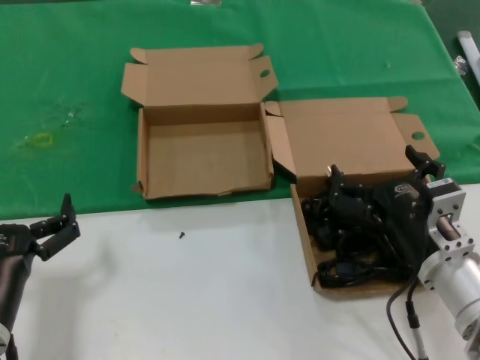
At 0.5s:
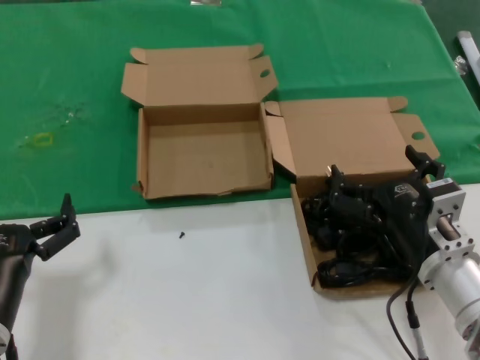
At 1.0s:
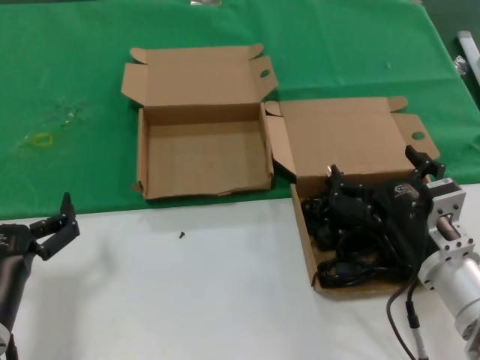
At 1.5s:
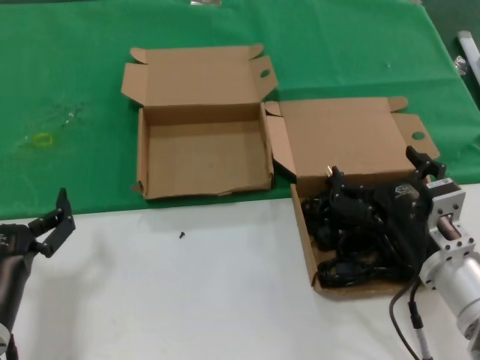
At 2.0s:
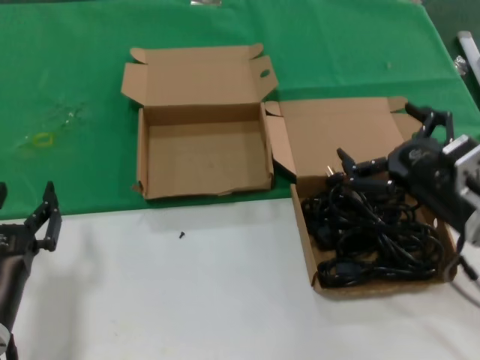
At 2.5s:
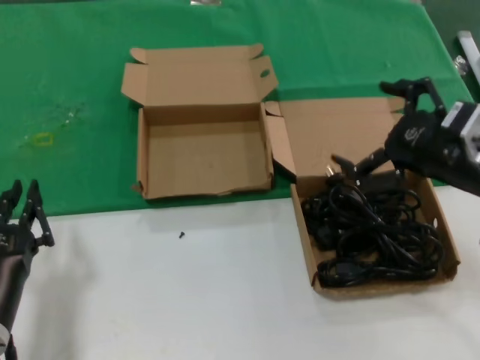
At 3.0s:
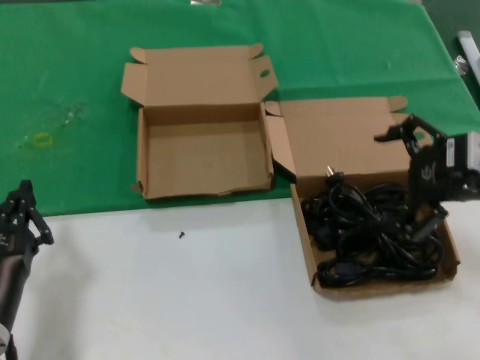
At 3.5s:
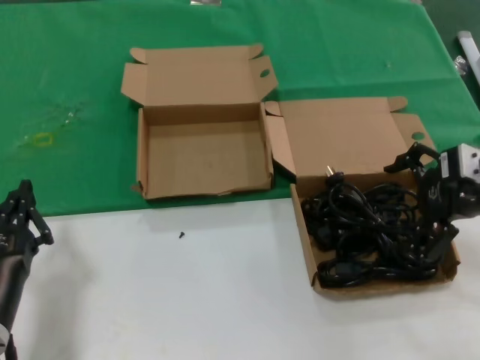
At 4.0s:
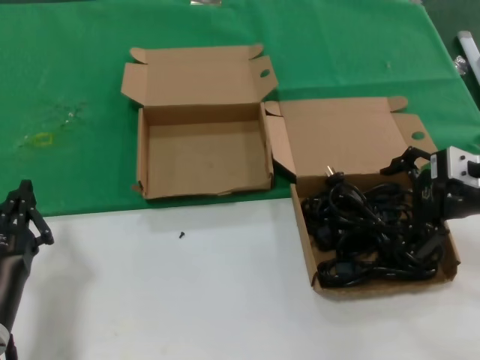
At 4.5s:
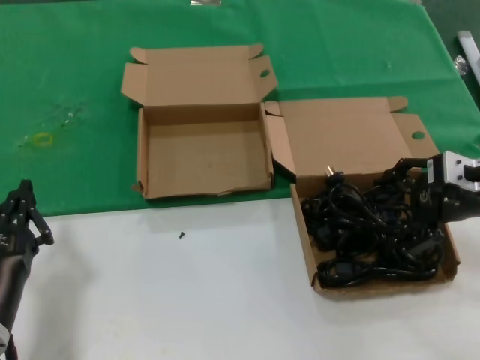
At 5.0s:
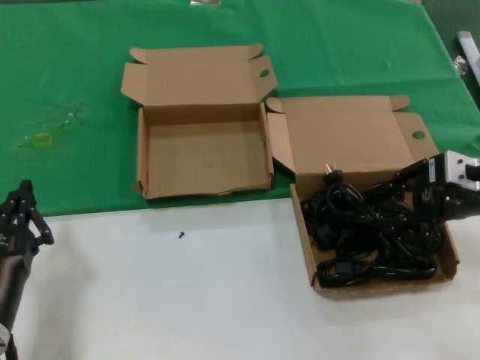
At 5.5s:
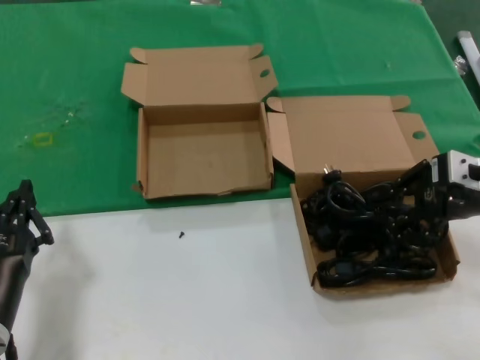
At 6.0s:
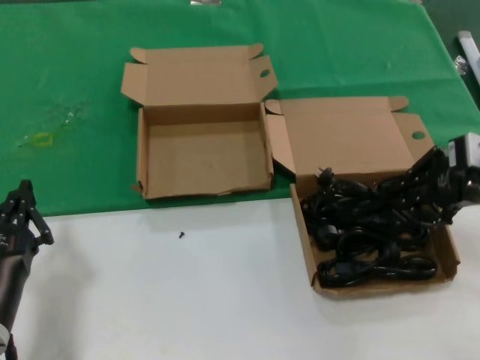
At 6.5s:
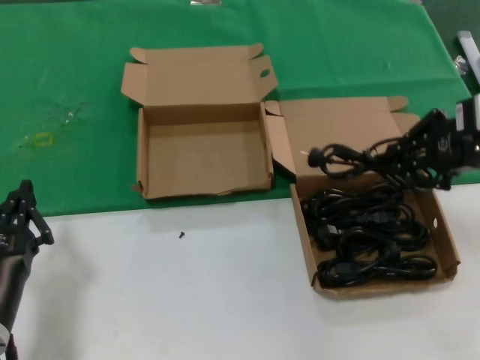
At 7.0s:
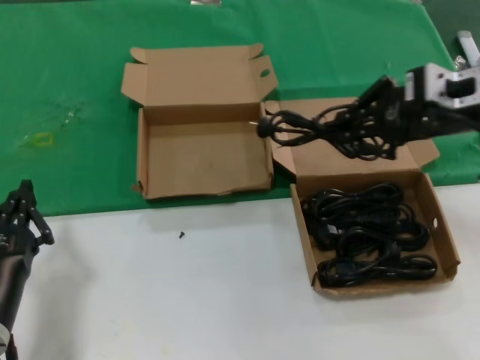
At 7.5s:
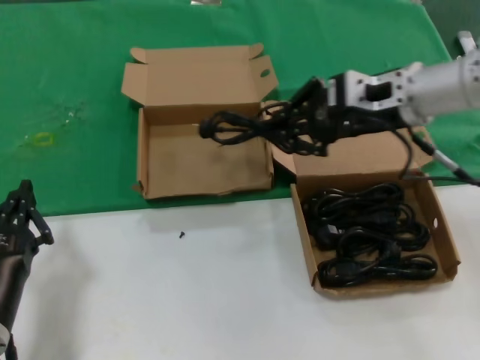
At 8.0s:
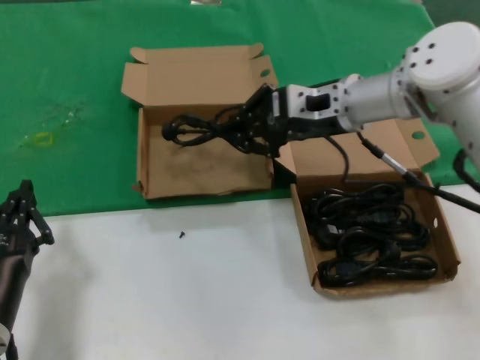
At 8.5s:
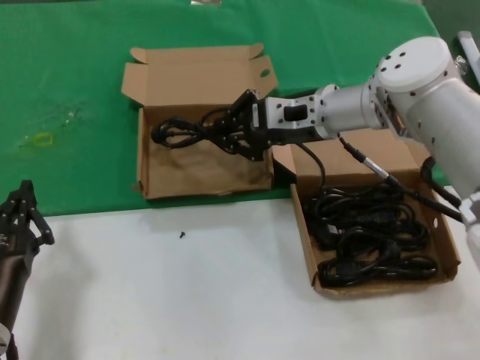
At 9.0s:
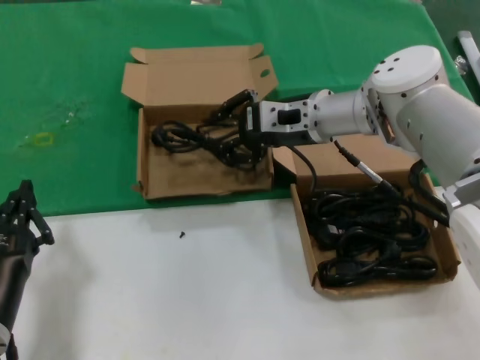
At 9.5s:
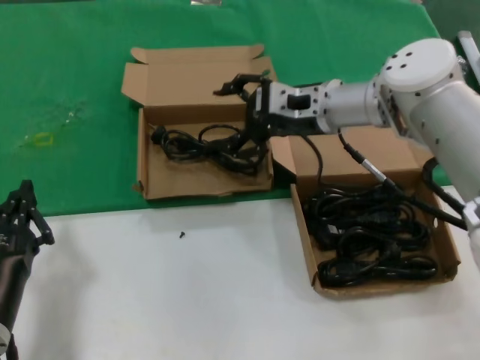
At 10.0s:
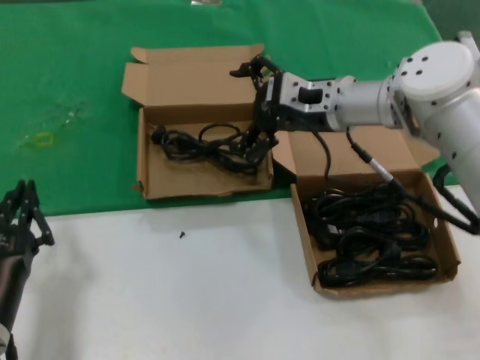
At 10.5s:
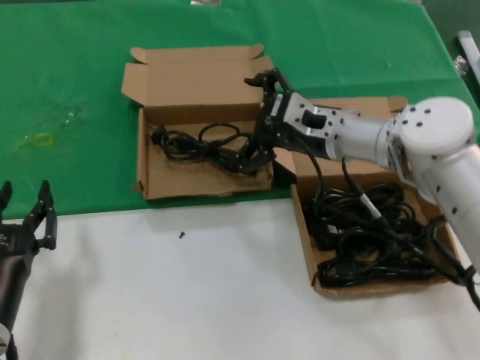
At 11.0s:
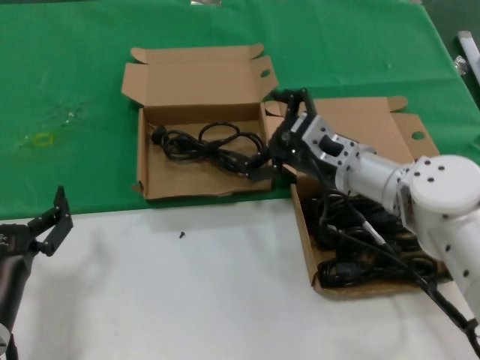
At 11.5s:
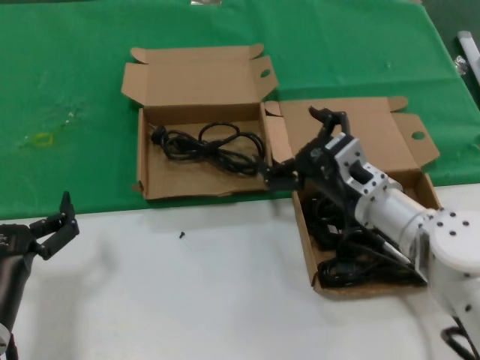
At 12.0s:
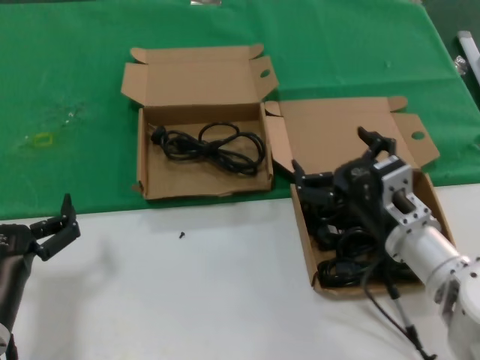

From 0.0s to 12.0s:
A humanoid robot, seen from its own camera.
Task of the whole recording: take the parts from the box containing them and put them into an empty box.
Step, from 0.0s to 5.0s: Grasp the data cable.
Step, from 6.0s to 9.0s: Place the data cable in the another box.
From 0.0s to 2.0s: The right hand is displaced upward and to the right by approximately 10 cm.
From 2.0s to 4.0s: The right hand travels upward, forward and to the right by about 15 cm.
From 4.0s to 6.0s: The hands make only small movements.
From 6.0s to 8.0s: The right hand is displaced to the left and forward by about 20 cm.
From 8.0s to 10.0s: There are only small adjustments of the hands.
From 10.0s to 12.0s: The right hand goes about 20 cm backward and downward.

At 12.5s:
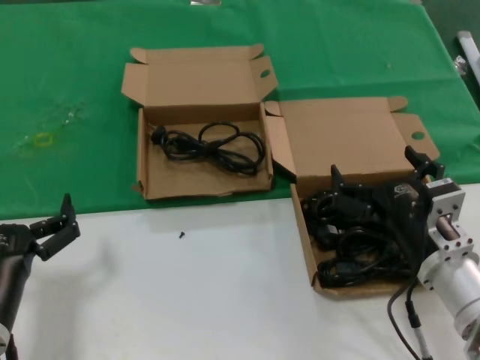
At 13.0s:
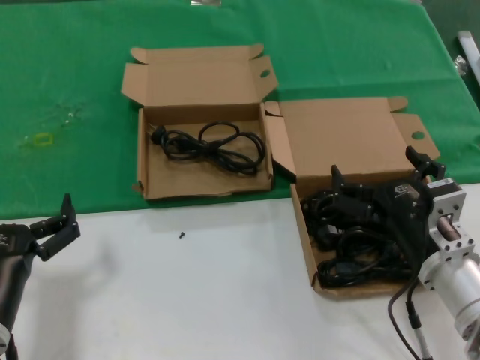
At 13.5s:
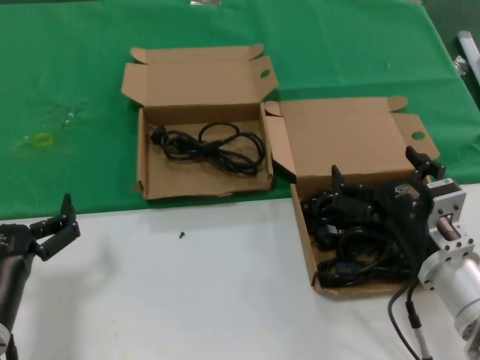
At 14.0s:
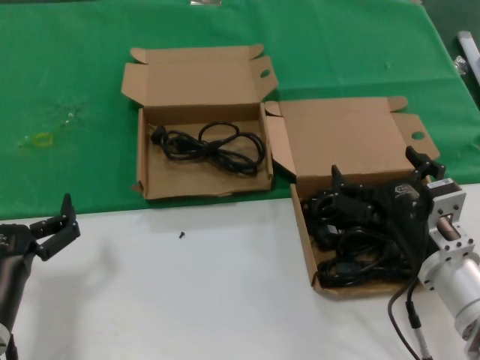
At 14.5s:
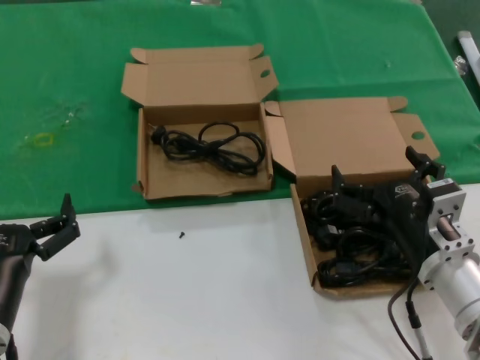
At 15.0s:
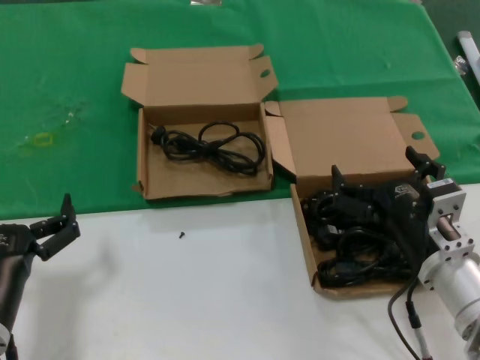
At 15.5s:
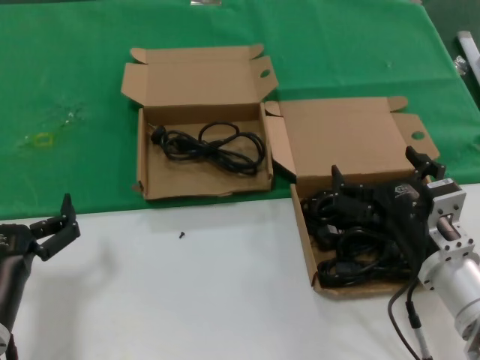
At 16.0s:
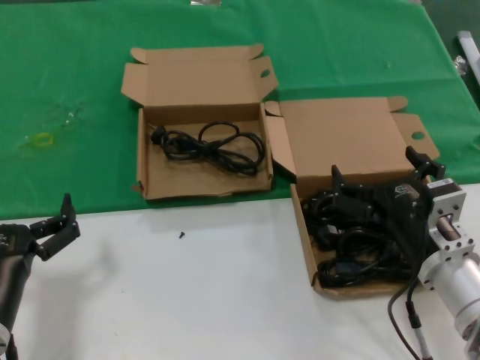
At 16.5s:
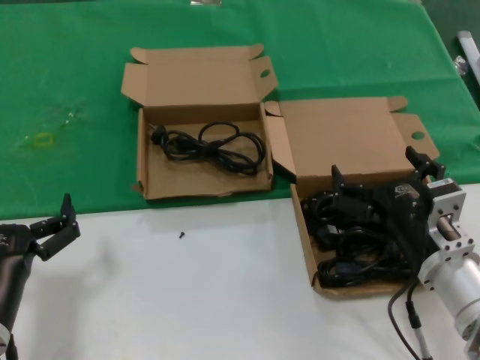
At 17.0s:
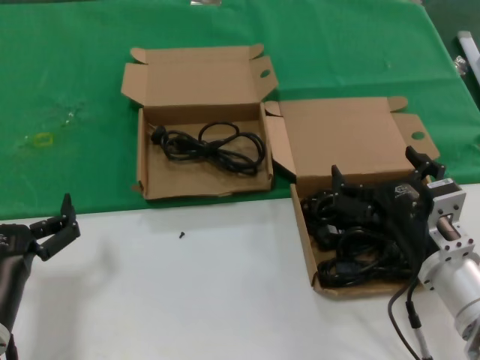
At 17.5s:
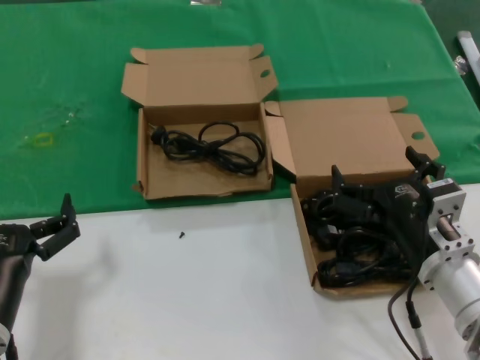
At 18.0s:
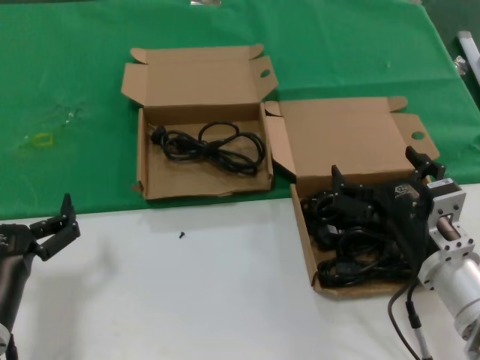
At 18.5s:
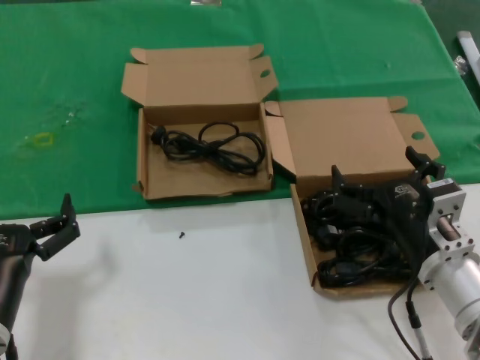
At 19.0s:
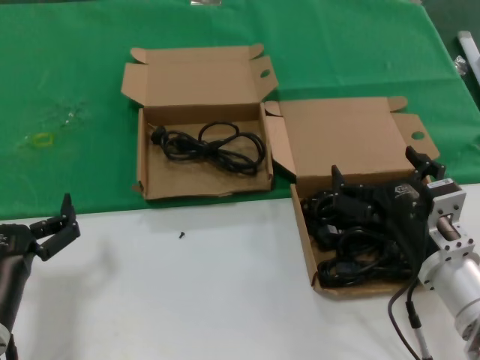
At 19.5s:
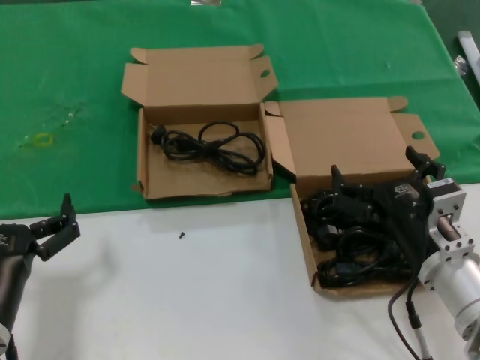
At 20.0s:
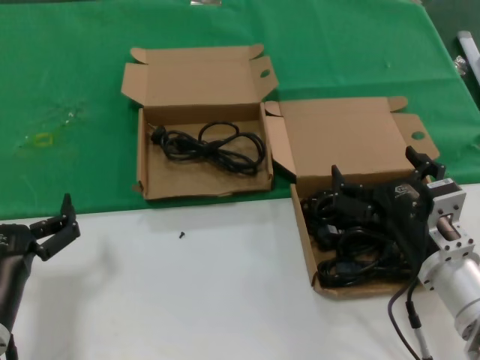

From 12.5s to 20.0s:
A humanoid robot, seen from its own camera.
Task of the whole recording: take the parts from the box containing them and put them into an empty box.
From 12.5s to 20.0s: Both hands stay put.

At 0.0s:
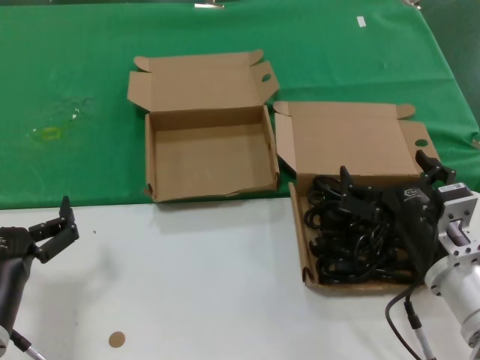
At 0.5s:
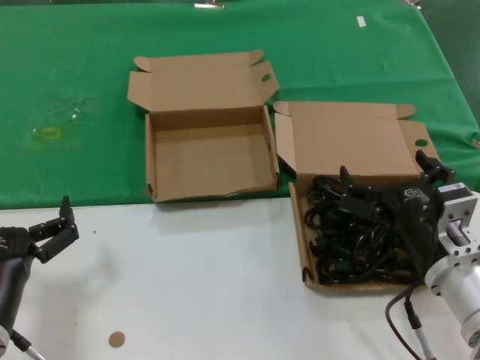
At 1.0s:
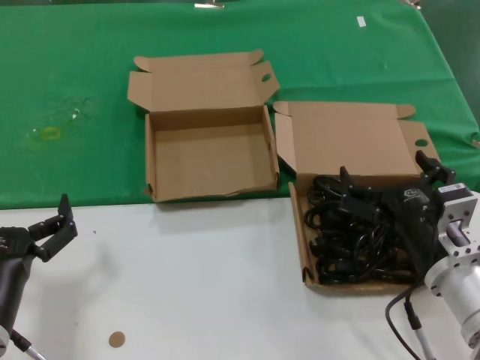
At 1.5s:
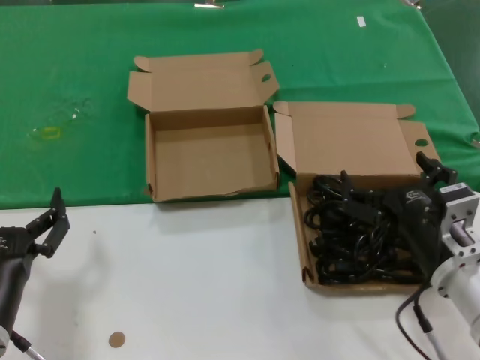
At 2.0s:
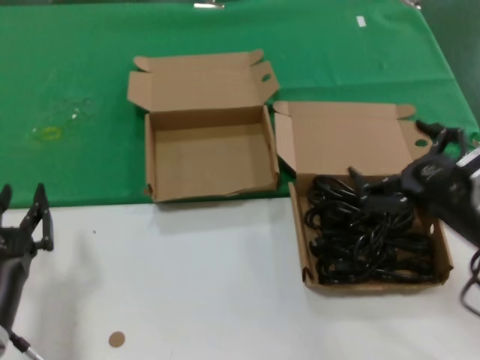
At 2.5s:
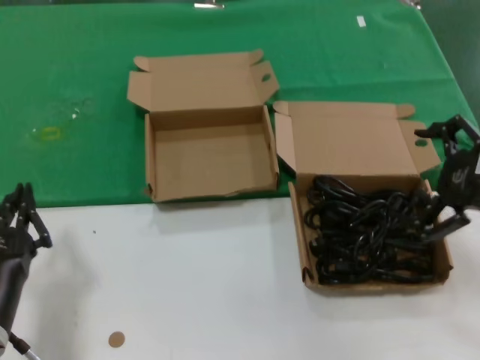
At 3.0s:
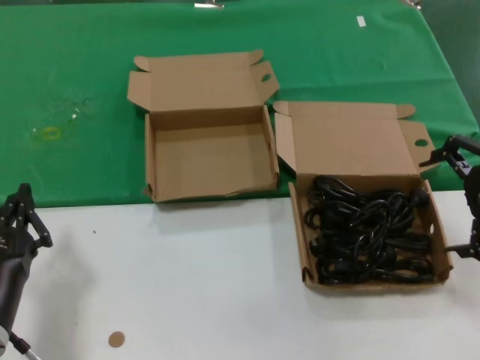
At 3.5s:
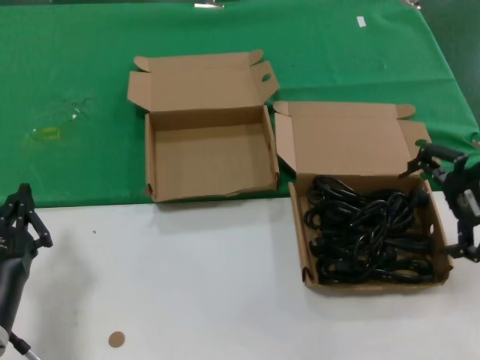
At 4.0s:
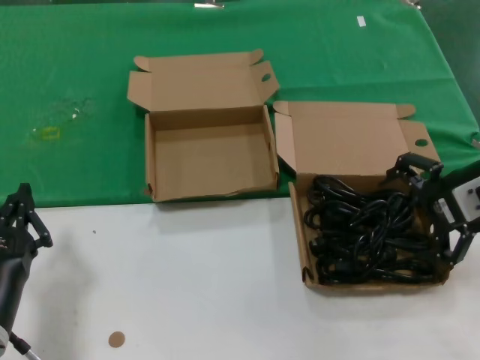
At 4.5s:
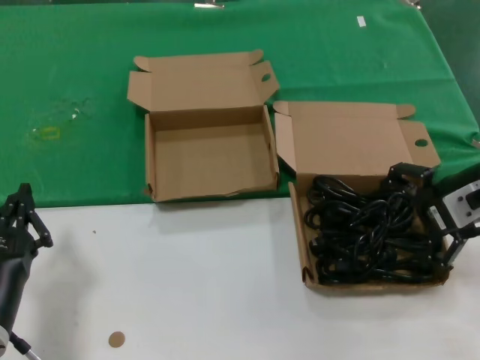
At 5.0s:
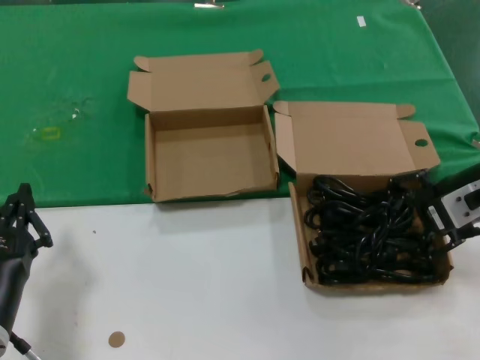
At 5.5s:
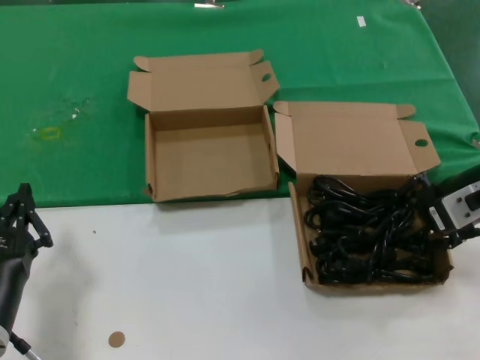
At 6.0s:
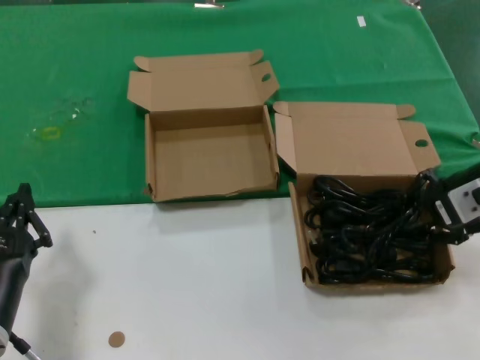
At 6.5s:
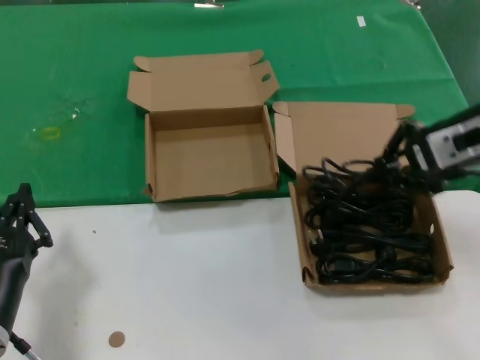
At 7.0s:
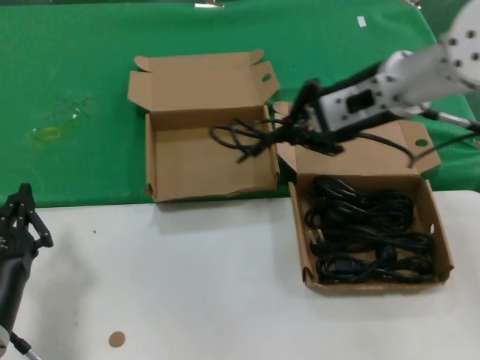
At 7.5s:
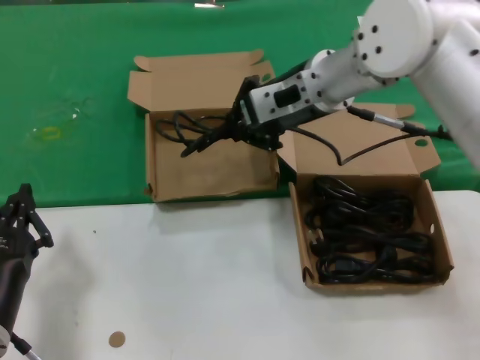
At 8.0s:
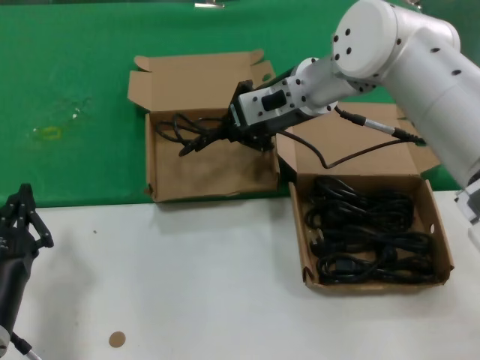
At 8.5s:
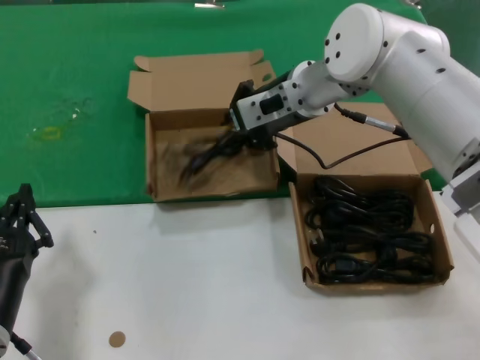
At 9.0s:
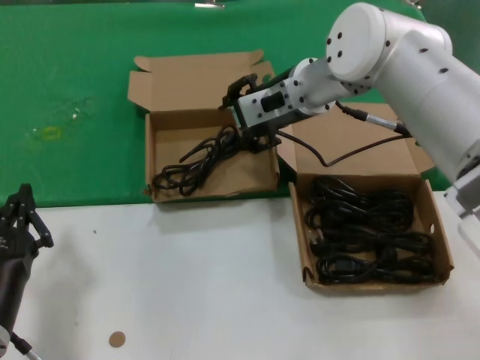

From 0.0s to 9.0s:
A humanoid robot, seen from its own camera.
Task of the whole recording: take the parts from the box containing them and put them into an empty box.
Step, from 0.0s to 5.5s: Grasp the data cable.
Step, from 6.0s to 8.5s: Place the data cable in the another box.
From 0.0s to 2.0s: The right hand shifts some 10 cm upward and to the right.
From 2.0s to 4.5s: The right hand goes approximately 15 cm forward and upward.
From 4.5s to 7.0s: The right hand travels to the left, upward and forward by approximately 15 cm.
From 7.0s to 9.0s: The right hand moves to the left and forward, some 15 cm.
